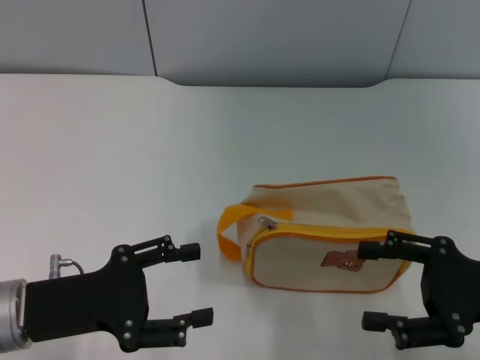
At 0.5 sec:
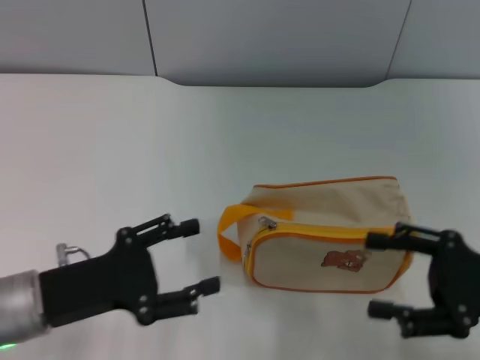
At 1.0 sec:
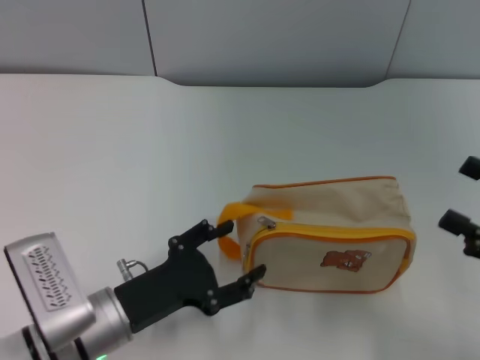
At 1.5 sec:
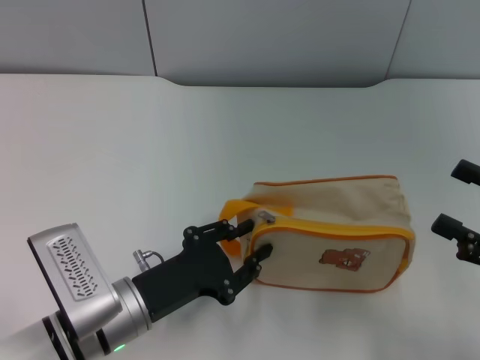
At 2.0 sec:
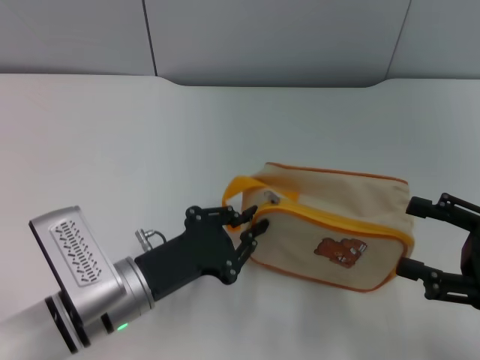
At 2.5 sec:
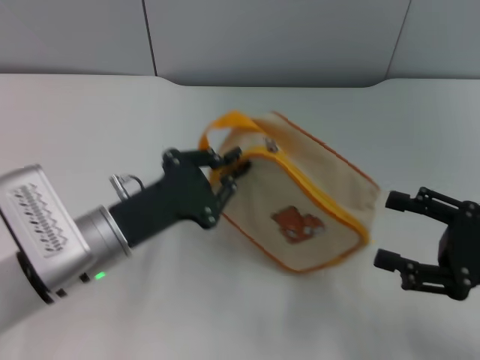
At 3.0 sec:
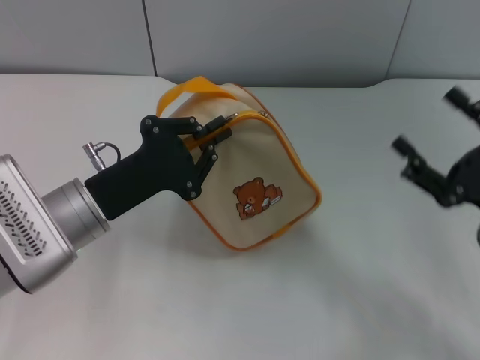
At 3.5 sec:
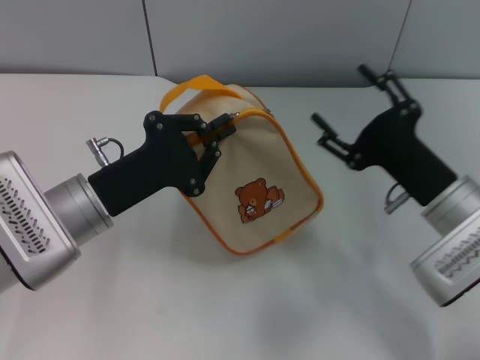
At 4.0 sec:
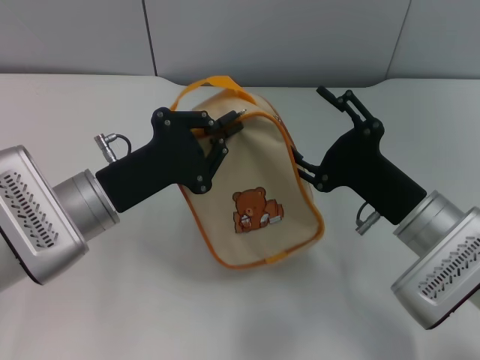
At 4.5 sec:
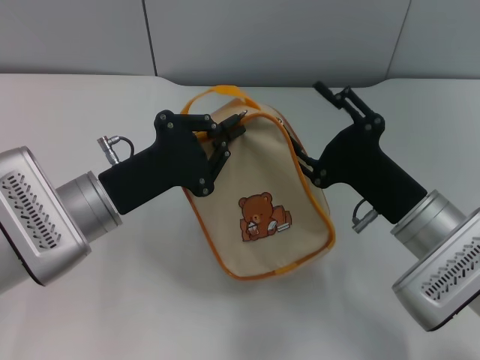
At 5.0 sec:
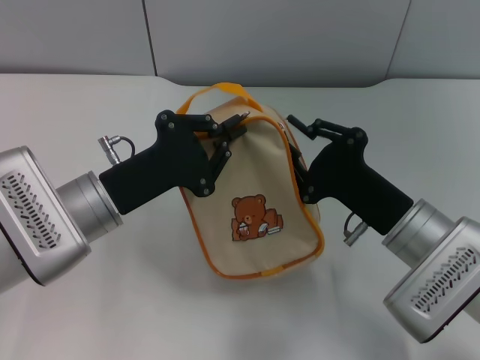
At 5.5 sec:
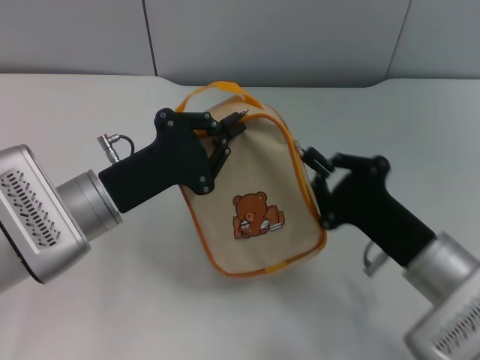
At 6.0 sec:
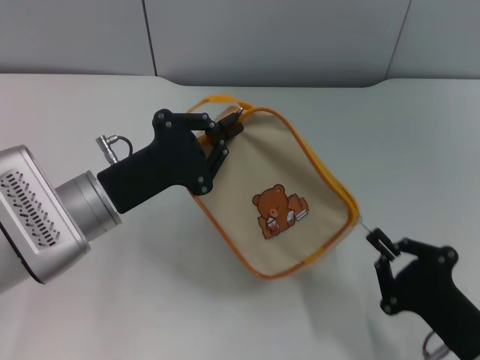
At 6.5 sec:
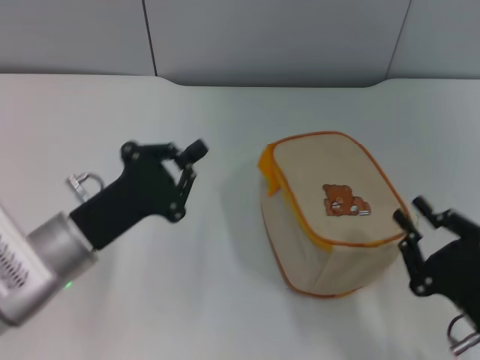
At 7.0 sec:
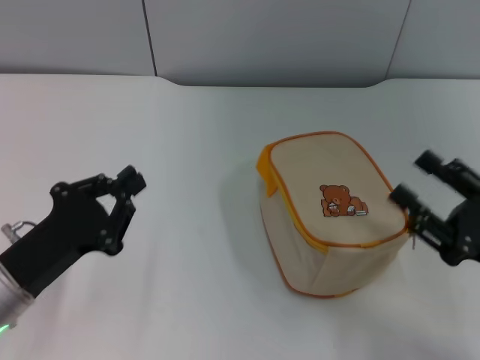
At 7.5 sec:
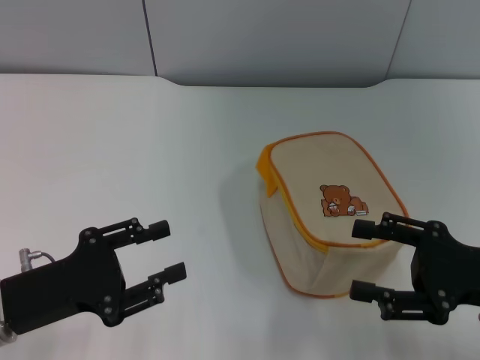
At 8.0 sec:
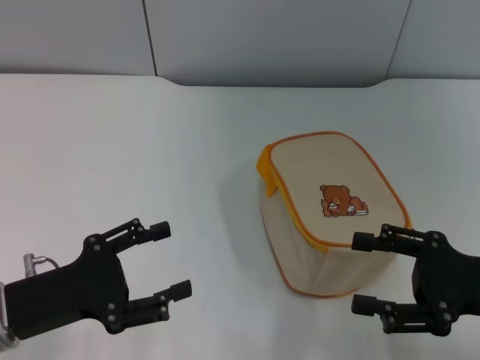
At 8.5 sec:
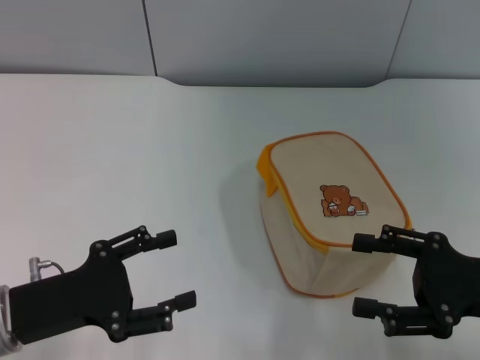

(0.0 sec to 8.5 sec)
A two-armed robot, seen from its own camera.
Step, 0.0 sec - 3.0 sec: Pick up the bag with left gripper.
Step, 3.5 sec - 6.5 sec: Unzip the zipper of bag with right gripper.
0.0 sec - 2.0 sec: The left gripper heads to the right, covering roughly 10 cm, and closes its fingers.
2.0 sec - 4.0 sec: The right gripper moves to the left and forward, roughly 15 cm. The left gripper is displaced upward and forward by about 10 cm.
4.0 sec - 6.5 sec: The right gripper shifts some 15 cm backward and to the right, and closes up.
6.5 sec - 8.5 sec: The left gripper goes roughly 10 cm to the left and backward, and opens its fingers. The right gripper travels forward and upward by roughly 10 cm, and opens.

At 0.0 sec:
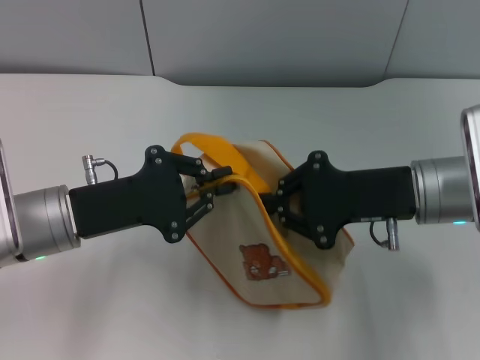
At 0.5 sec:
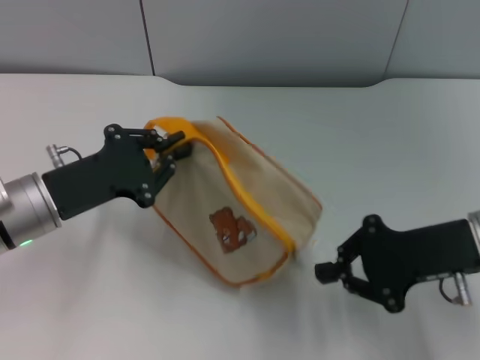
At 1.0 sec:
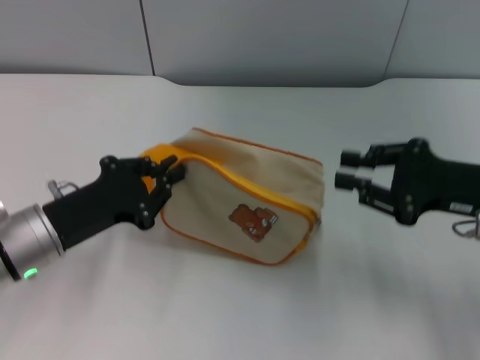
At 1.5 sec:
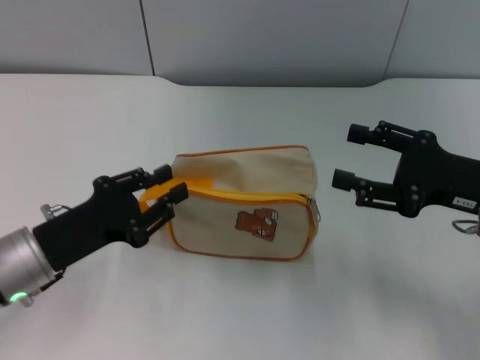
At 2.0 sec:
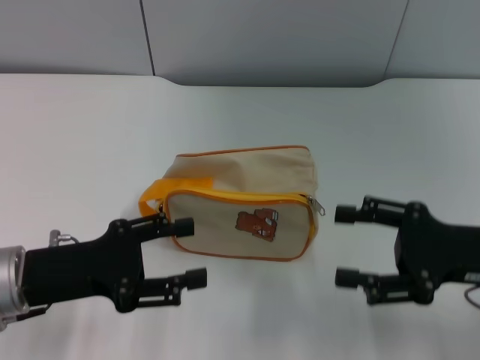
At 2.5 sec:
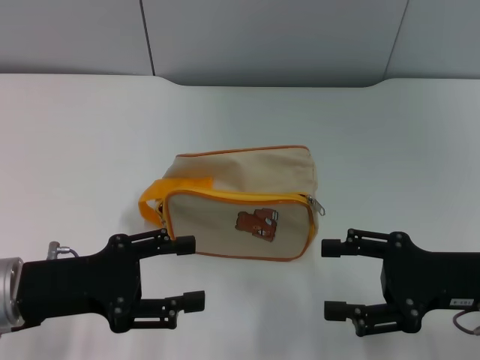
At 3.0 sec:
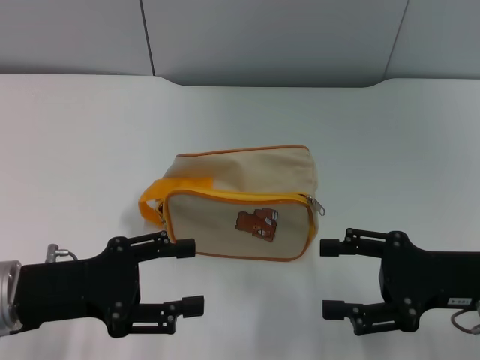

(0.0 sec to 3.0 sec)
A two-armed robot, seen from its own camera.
Step, 1.0 sec - 1.5 sec: Place the bag on the table with left gripper.
0.0 sec - 1.5 sec: The left gripper changes place by some 5 cm; the right gripper is displaced to the right by some 10 cm, and opens.
1.5 sec - 3.0 sec: The left gripper opens, while the right gripper shifts by about 5 cm.

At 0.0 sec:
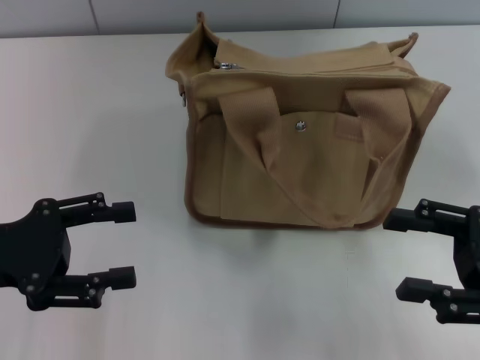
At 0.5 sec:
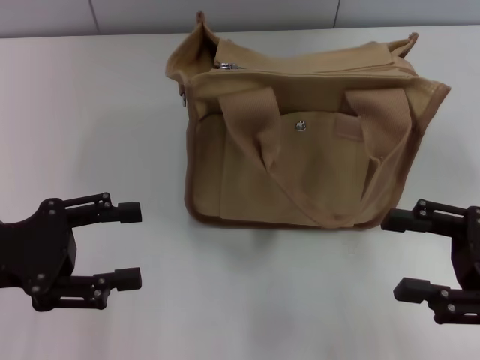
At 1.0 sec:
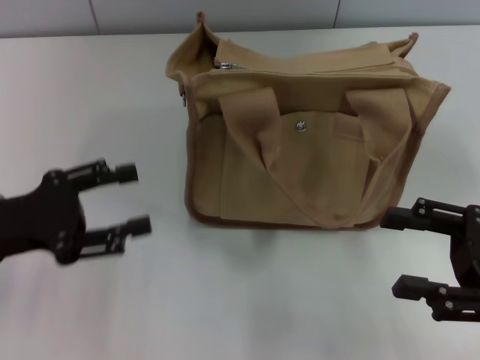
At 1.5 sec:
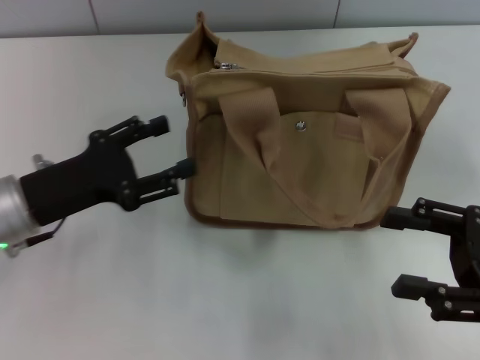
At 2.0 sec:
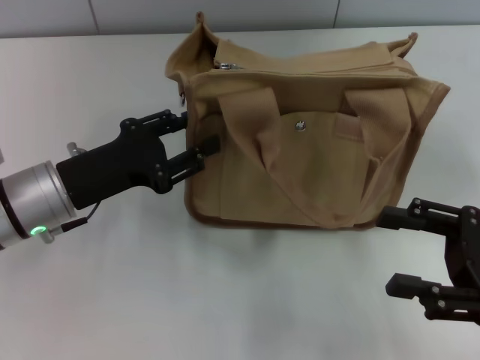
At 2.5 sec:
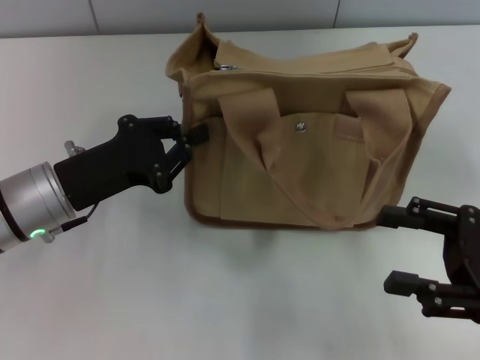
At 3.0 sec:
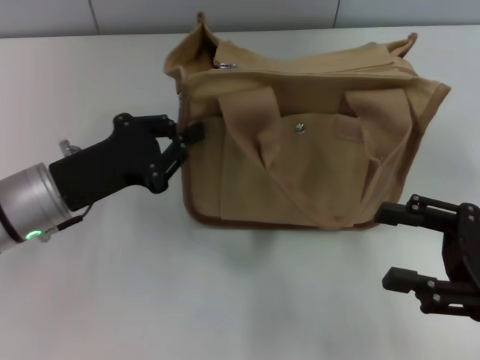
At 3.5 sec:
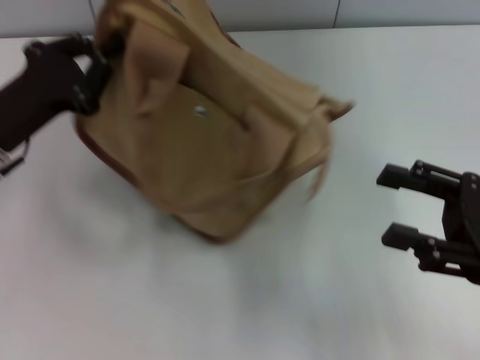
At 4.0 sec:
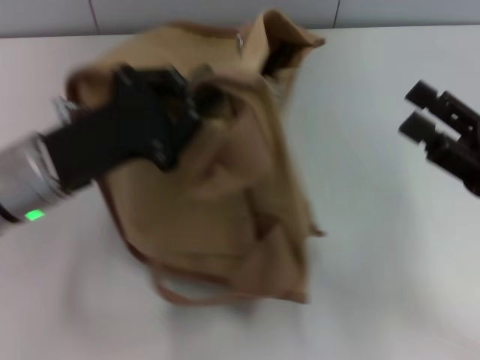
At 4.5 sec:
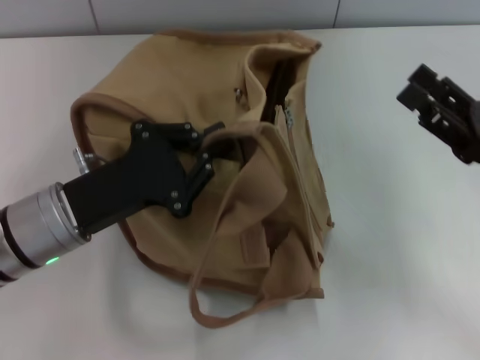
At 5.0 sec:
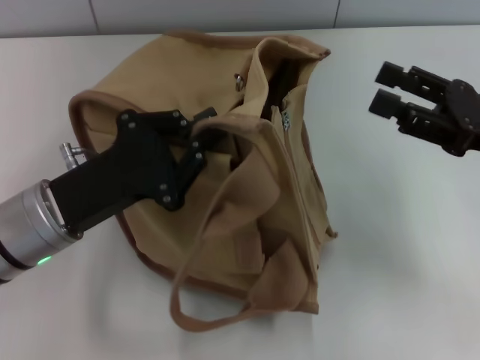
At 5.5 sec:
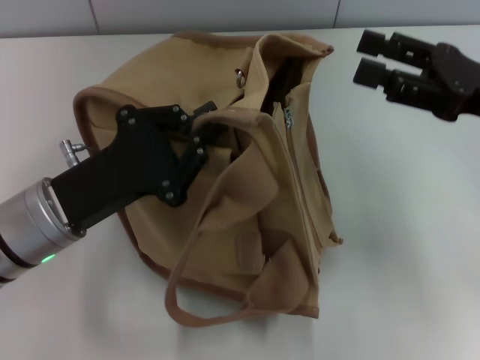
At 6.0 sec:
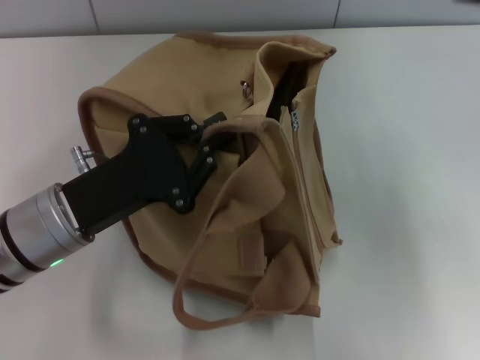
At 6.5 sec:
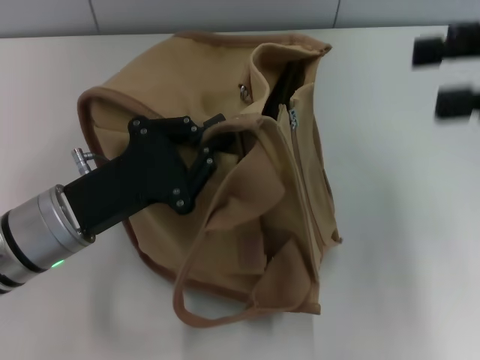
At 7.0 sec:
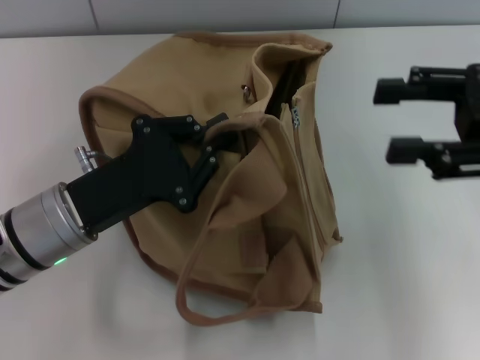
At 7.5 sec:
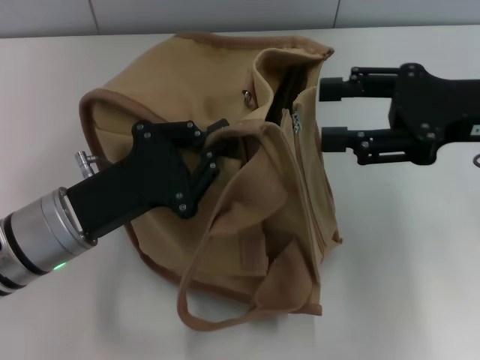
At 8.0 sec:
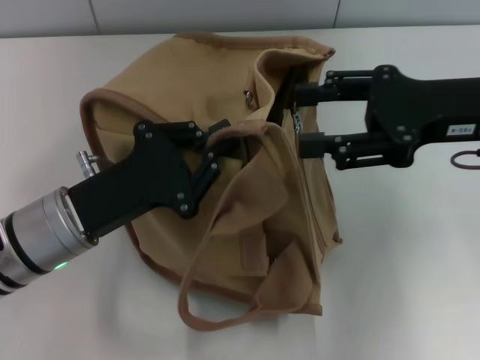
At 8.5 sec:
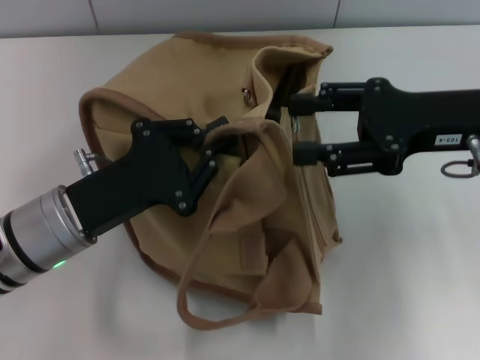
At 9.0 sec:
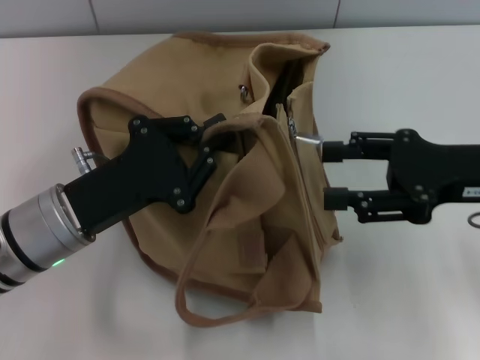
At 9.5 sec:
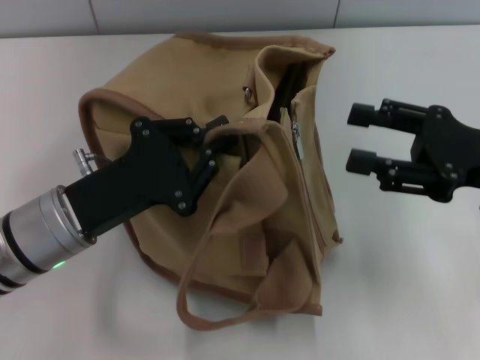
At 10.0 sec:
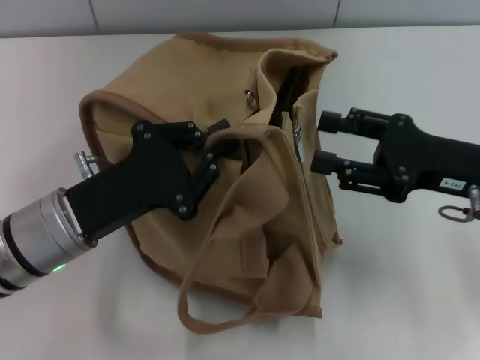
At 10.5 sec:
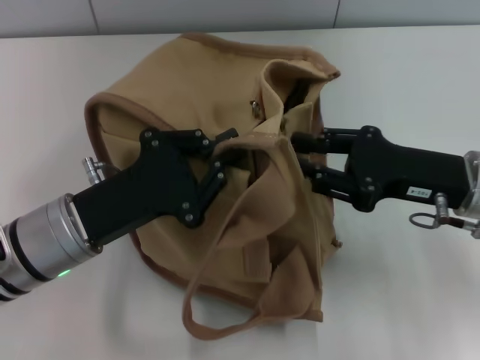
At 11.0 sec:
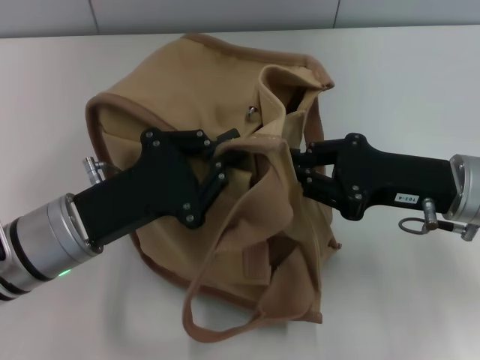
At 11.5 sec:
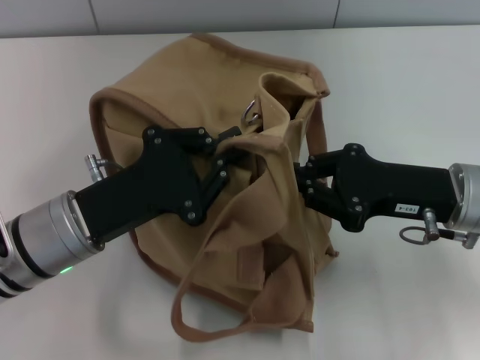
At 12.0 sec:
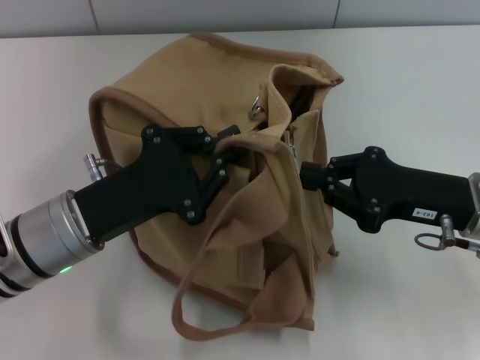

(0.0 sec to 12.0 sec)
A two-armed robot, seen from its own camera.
0.0 sec - 2.0 sec: The left gripper is displaced to the right and forward by some 10 cm.
2.0 sec - 4.0 sec: The left gripper closes.
4.0 sec - 6.0 sec: The right gripper goes approximately 20 cm upward and forward.
6.0 sec - 8.0 sec: The right gripper travels to the left and downward by approximately 10 cm.
8.0 sec - 10.0 sec: The right gripper shifts some 10 cm downward.
10.0 sec - 12.0 sec: The right gripper closes its fingers.

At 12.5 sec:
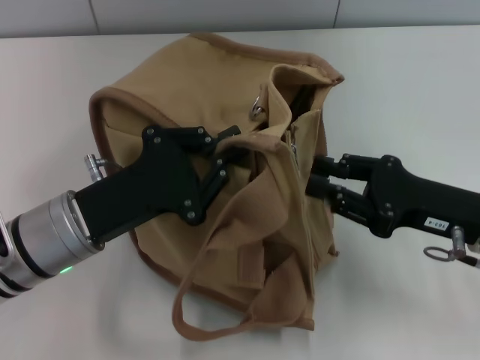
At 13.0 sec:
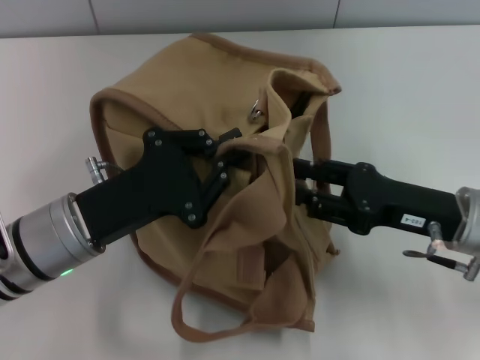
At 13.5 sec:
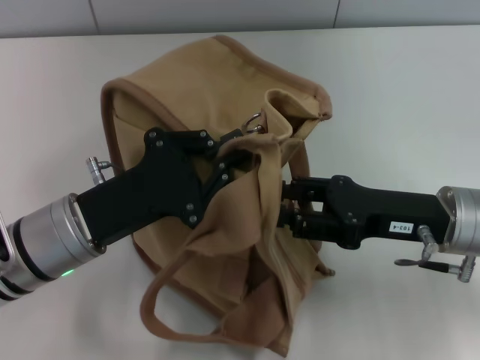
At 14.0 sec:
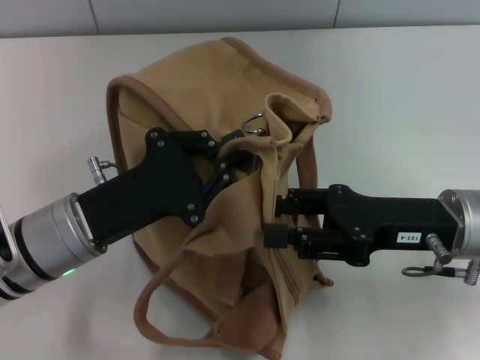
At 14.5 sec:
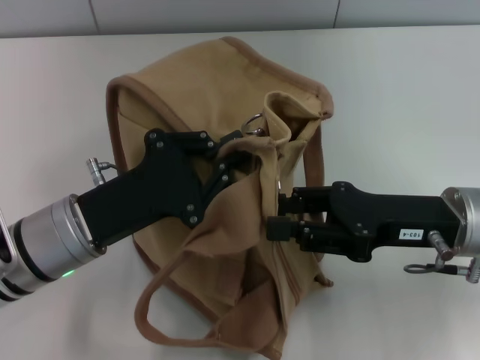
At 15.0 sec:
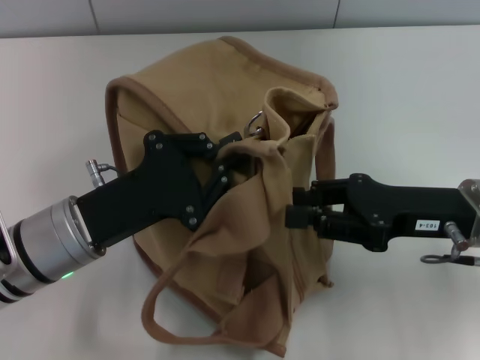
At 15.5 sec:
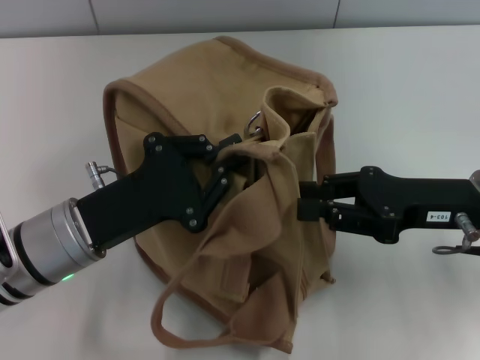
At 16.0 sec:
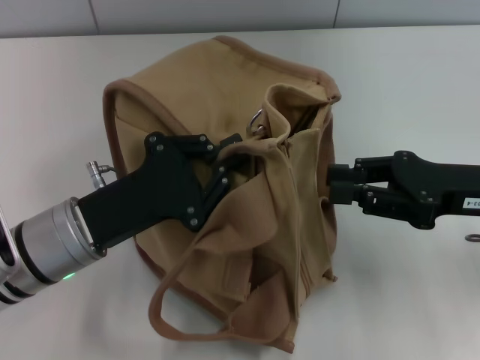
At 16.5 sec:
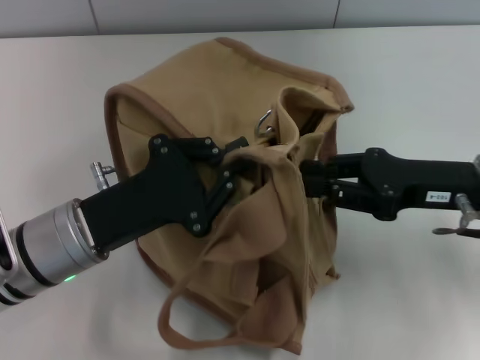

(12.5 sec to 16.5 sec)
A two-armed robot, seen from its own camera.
12.5 sec - 14.5 sec: The right gripper opens its fingers.
